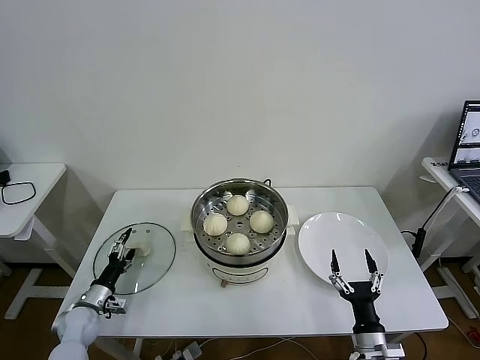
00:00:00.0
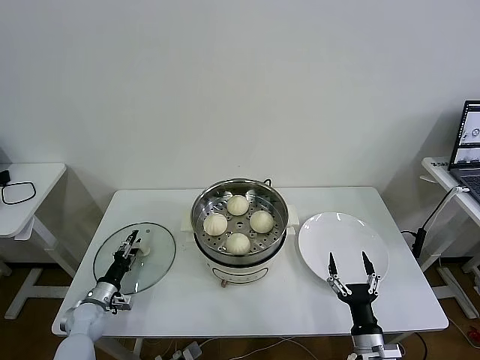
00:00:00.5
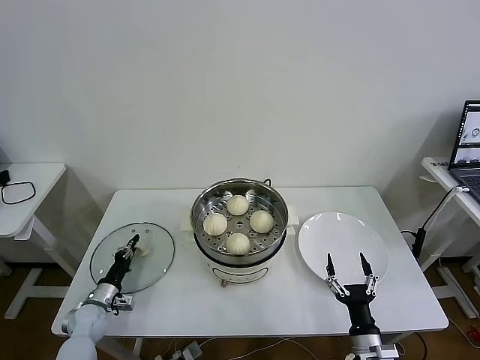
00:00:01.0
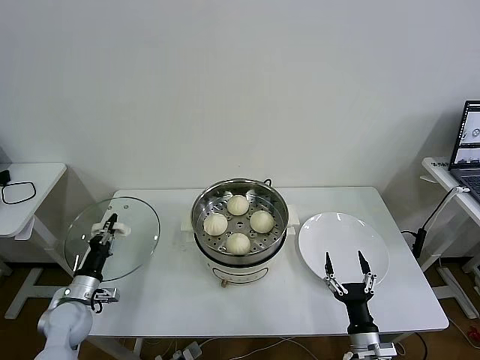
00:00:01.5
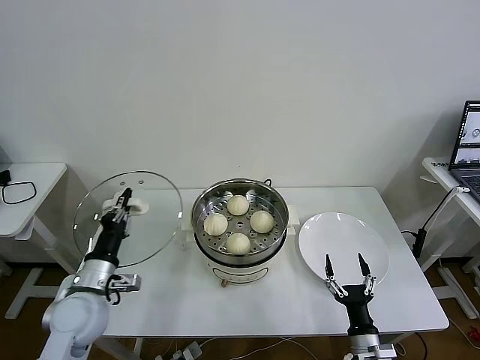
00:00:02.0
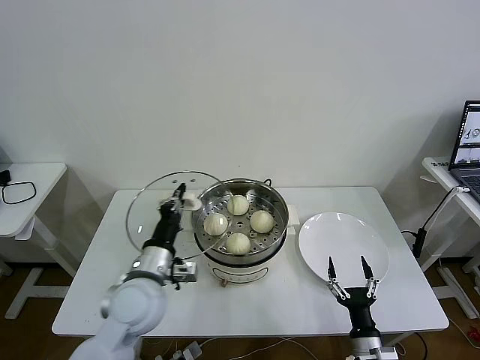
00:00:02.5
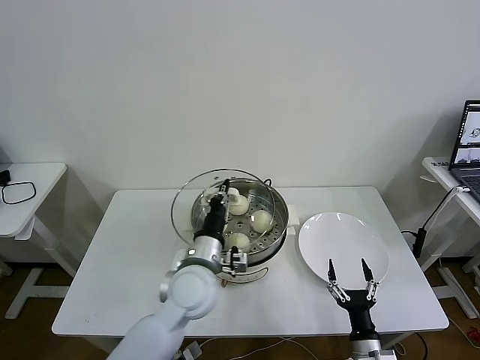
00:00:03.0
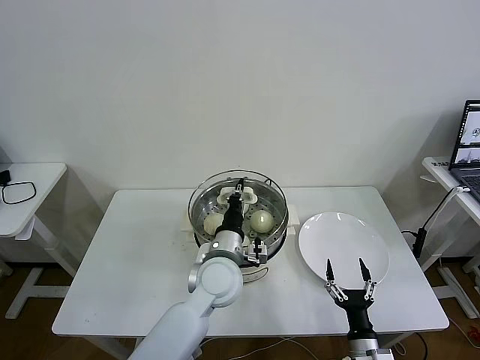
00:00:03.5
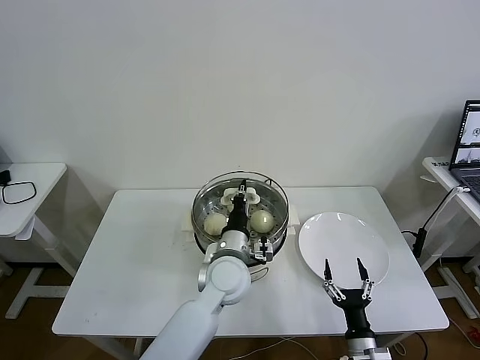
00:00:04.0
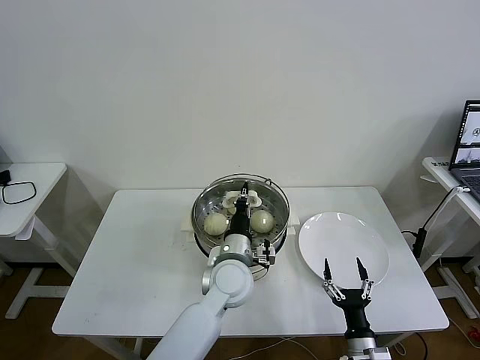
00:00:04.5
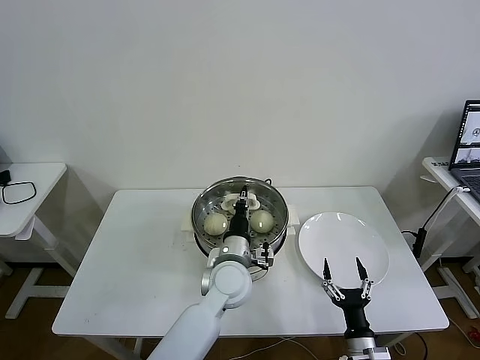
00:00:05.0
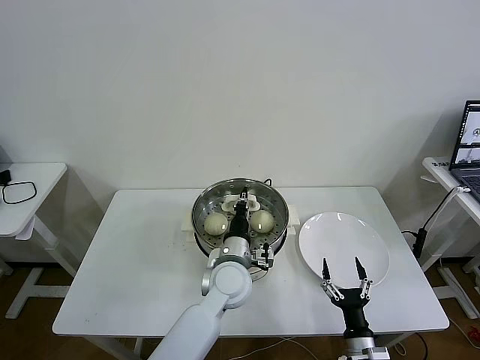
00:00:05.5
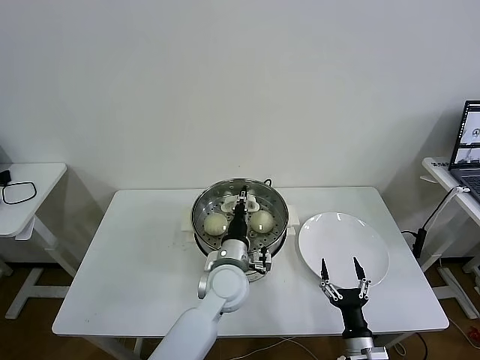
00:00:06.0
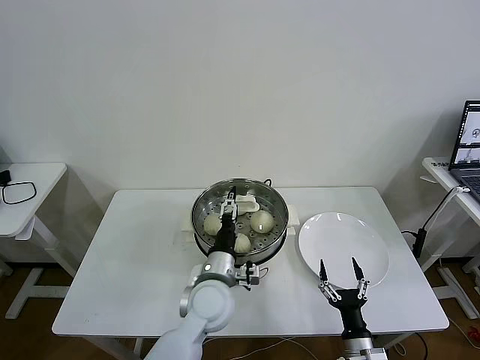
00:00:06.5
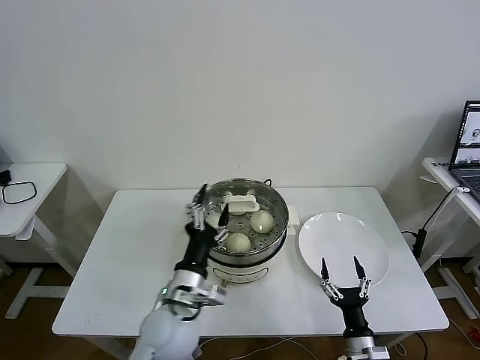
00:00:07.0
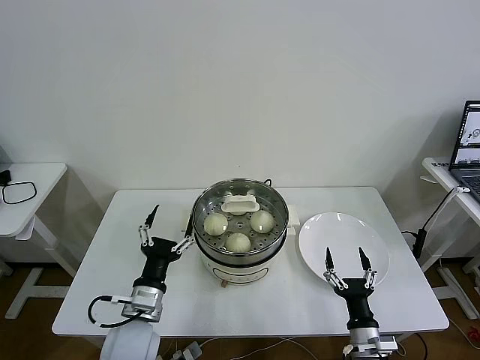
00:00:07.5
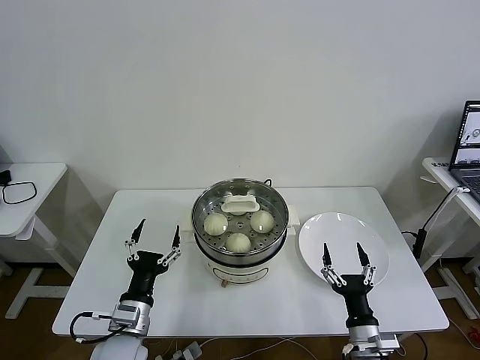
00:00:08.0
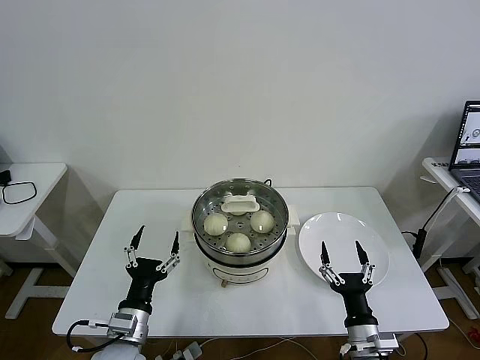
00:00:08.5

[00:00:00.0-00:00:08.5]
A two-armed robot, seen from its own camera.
Task of the whole recording: take steamed baozi put them in steamer then cover it.
Step, 00:00:01.5 to 00:00:06.0: Place the pot lid on the steamer with left gripper.
00:00:00.0 to 00:00:02.0: The left gripper goes roughly 20 cm upward and to the right, and closes up.
00:00:02.0 to 00:00:04.0: The left gripper travels to the right by about 30 cm.
00:00:04.0 to 00:00:06.5: The left gripper opens.
00:00:06.5 to 00:00:08.5: The right gripper is displaced upward by approximately 10 cm. The left gripper heads to the left and backward, covering about 20 cm.
